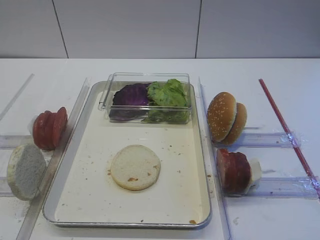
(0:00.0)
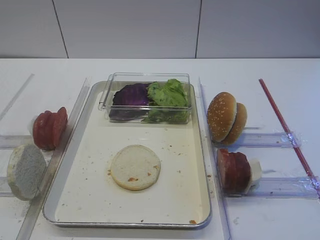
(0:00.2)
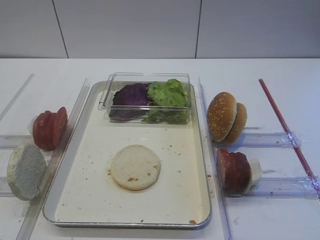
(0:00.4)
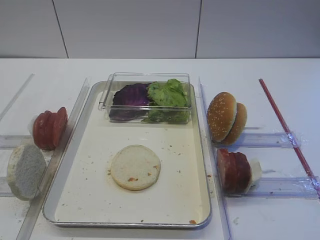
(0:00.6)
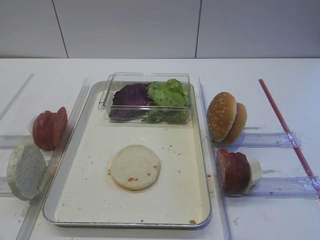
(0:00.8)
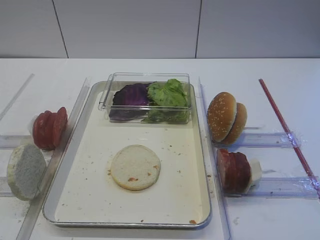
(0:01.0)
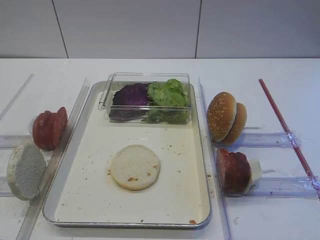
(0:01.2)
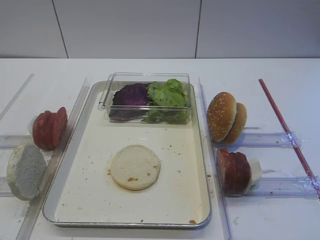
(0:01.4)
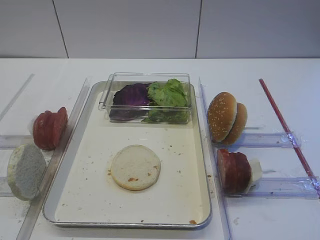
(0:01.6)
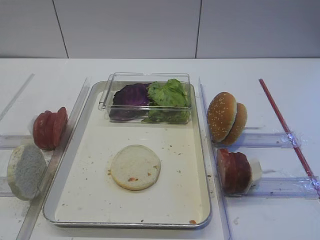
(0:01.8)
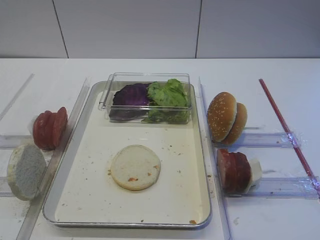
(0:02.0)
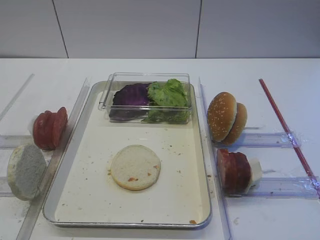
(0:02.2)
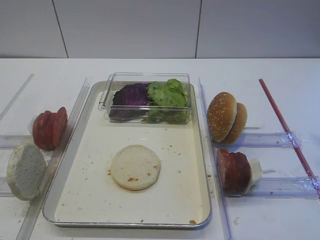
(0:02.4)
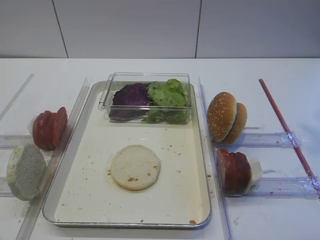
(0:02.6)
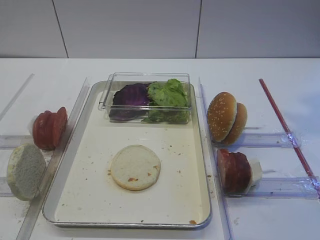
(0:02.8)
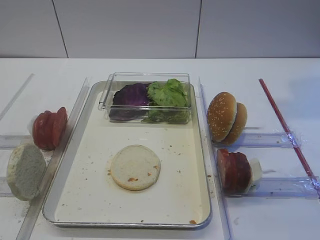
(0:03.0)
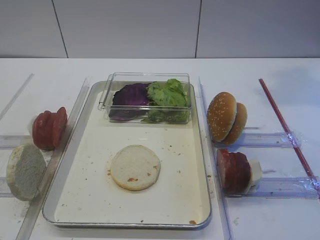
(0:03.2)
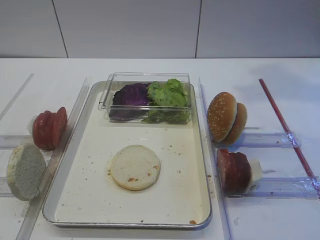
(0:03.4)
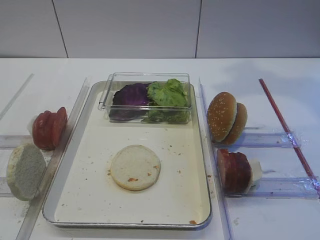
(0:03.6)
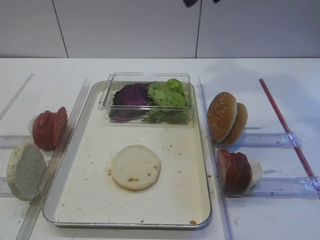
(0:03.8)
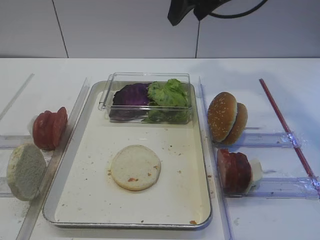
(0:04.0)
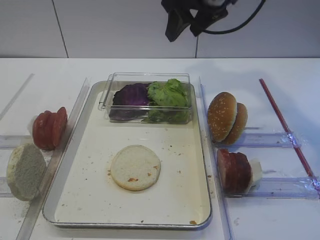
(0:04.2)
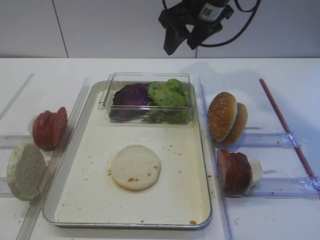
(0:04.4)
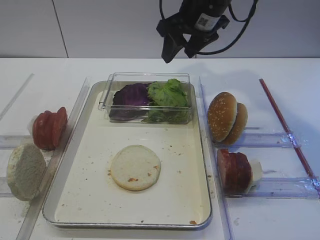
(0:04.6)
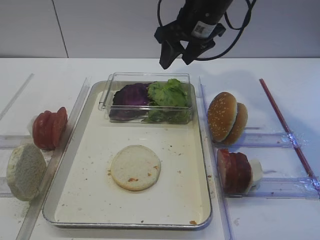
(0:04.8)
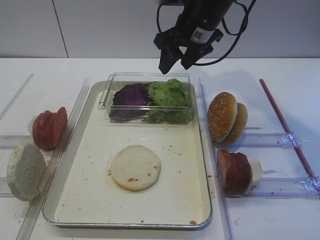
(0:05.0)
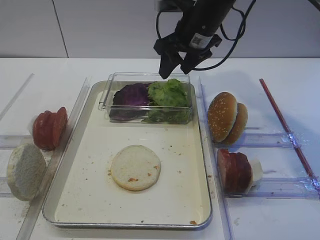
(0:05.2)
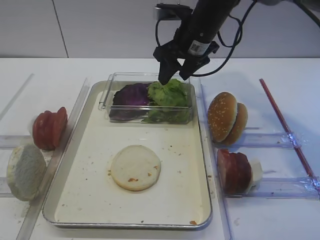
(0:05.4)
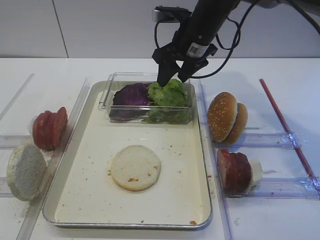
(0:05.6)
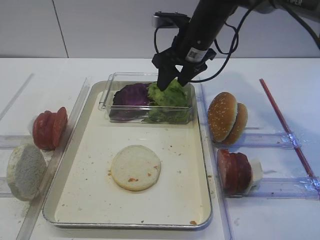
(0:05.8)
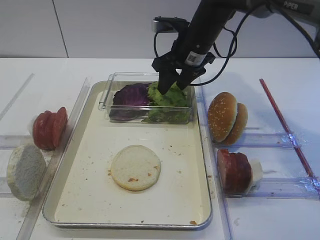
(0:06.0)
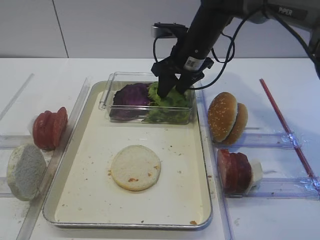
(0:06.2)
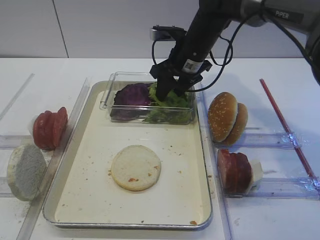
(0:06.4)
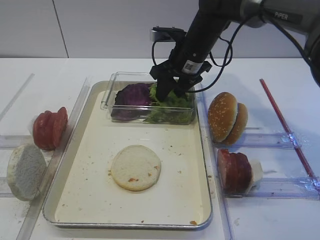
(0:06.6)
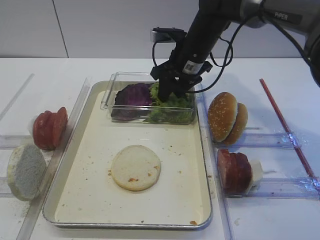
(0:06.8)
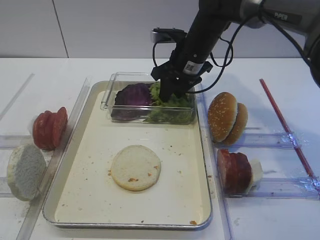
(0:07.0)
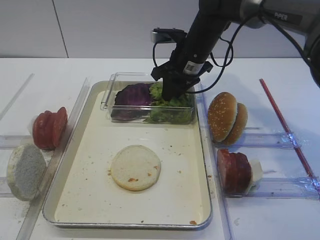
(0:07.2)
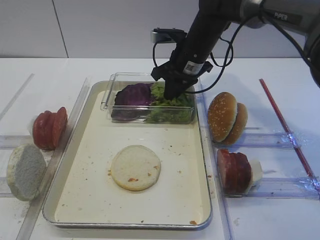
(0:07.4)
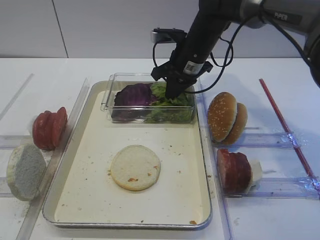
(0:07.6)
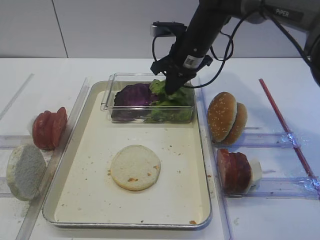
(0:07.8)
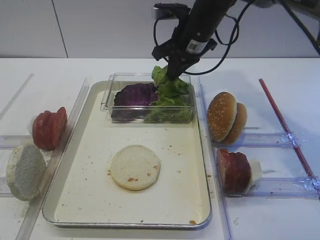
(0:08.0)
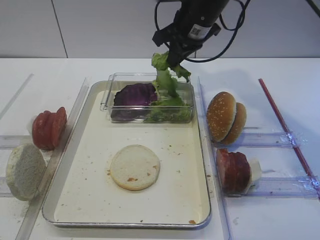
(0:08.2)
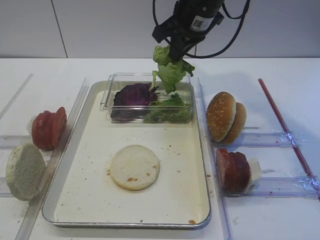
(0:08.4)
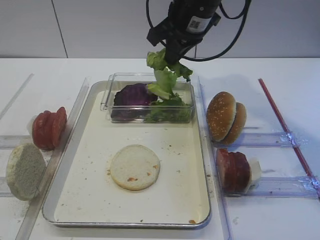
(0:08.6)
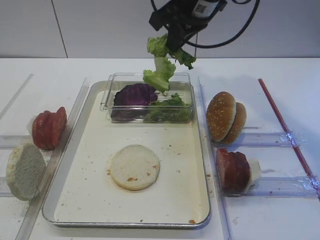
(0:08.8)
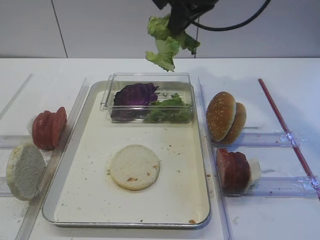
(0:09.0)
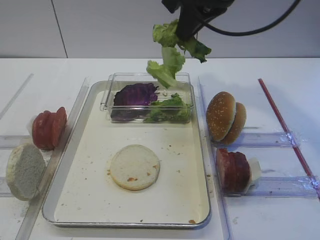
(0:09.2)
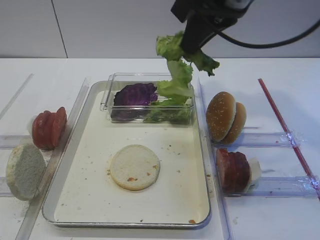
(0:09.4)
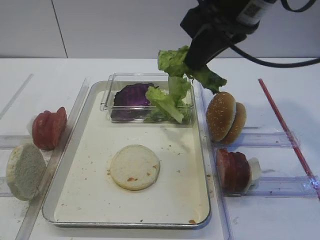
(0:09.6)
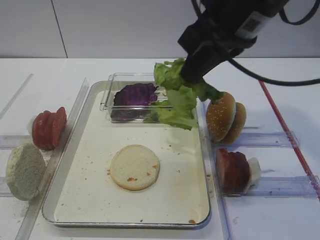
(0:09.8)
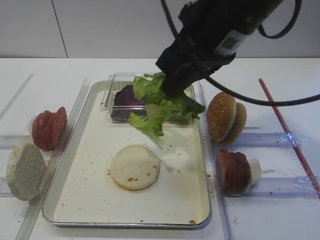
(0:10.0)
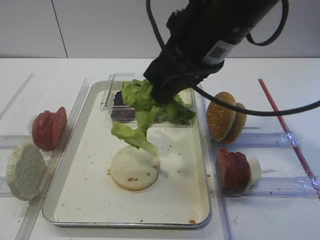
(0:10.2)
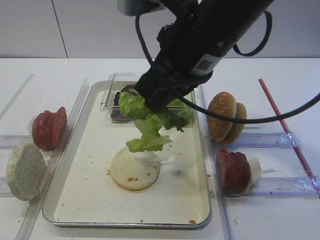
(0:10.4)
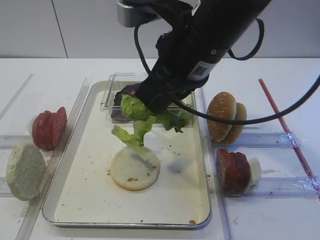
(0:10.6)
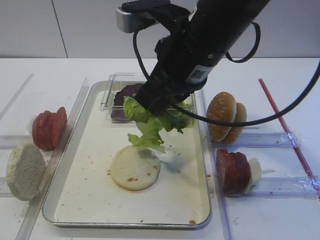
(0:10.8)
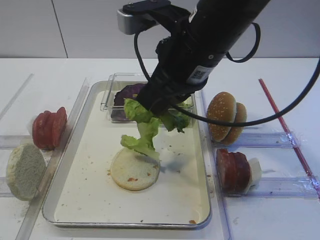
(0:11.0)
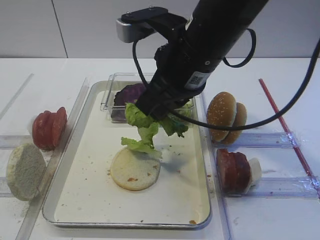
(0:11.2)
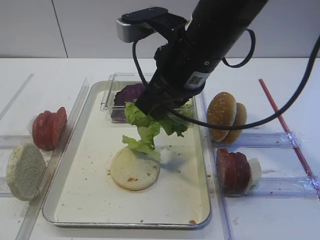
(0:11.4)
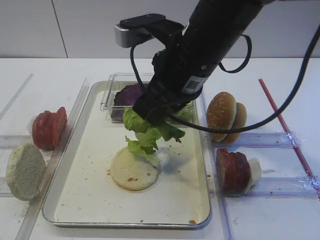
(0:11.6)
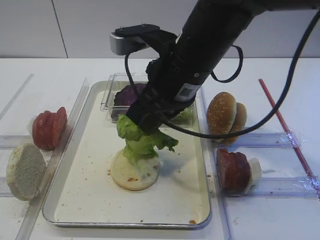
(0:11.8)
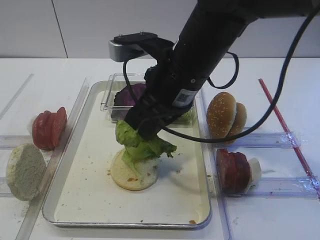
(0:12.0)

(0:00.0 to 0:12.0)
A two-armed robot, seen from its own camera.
Step, 0:00.0 - 0:08.0: Pick up the lettuce leaf with the right gripper.
0:03.0 - 0:04.4: The right gripper shifts about 25 cm forward, to the left and downward.
0:04.4 - 0:06.0: The right gripper heads downward, covering approximately 10 cm.
0:06.0 - 0:07.6: The right gripper closes up.
0:07.6 - 0:09.0: The right gripper heads upward and backward, covering approximately 20 cm.
0:09.0 - 0:10.4: The right gripper travels backward by some 10 cm.
0:10.4 - 0:12.0: The right gripper is displaced downward by roughly 5 cm.

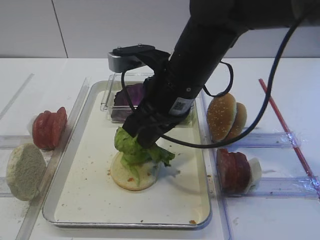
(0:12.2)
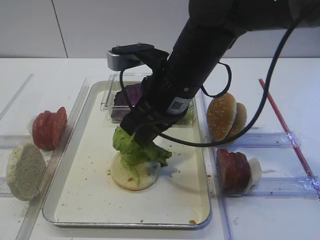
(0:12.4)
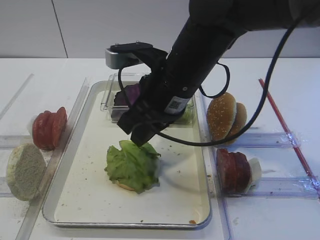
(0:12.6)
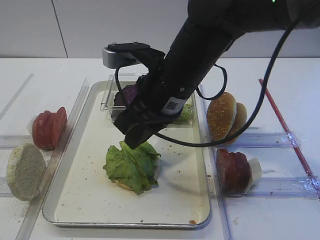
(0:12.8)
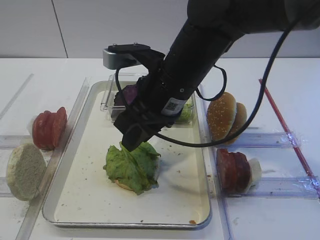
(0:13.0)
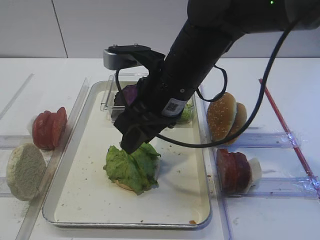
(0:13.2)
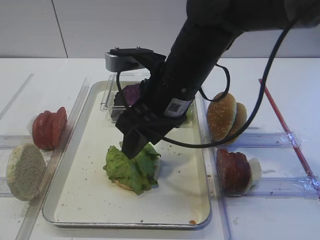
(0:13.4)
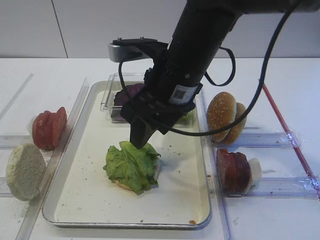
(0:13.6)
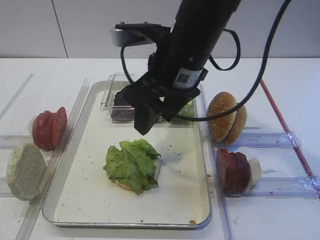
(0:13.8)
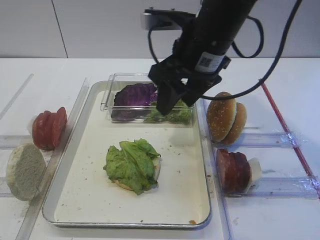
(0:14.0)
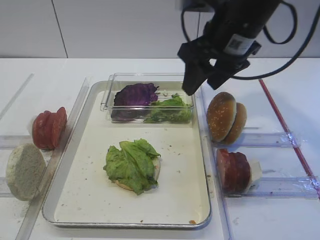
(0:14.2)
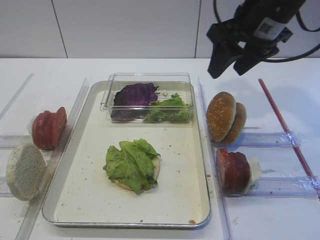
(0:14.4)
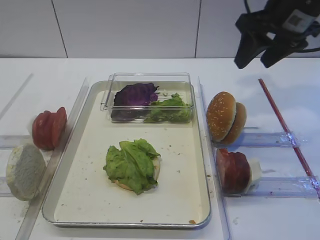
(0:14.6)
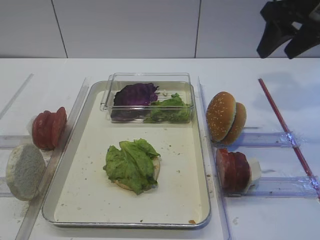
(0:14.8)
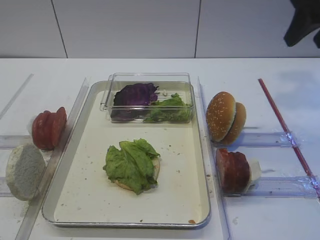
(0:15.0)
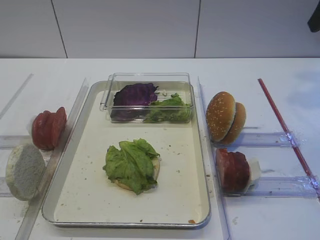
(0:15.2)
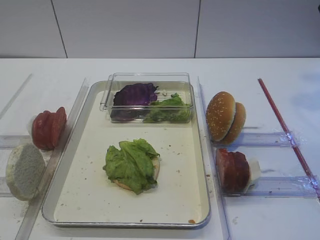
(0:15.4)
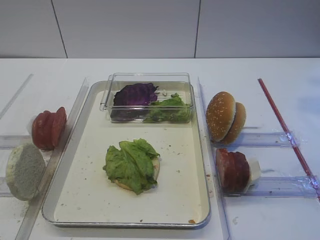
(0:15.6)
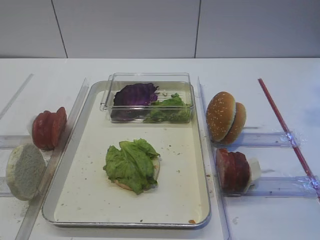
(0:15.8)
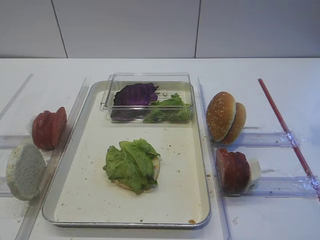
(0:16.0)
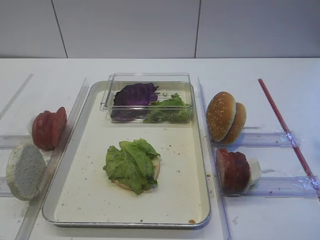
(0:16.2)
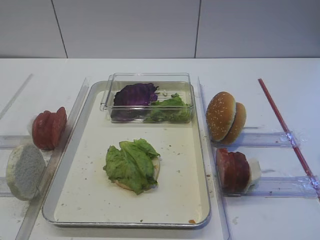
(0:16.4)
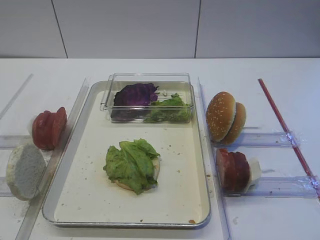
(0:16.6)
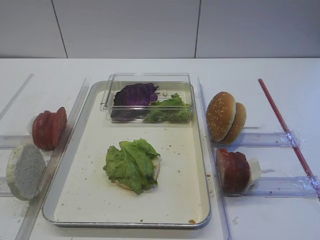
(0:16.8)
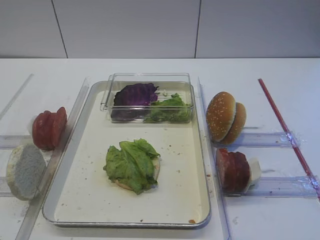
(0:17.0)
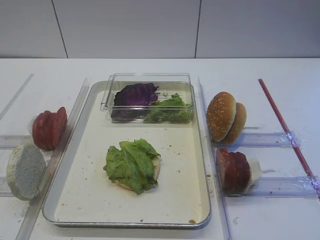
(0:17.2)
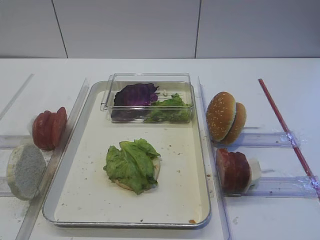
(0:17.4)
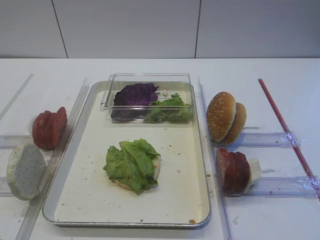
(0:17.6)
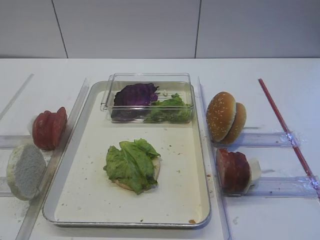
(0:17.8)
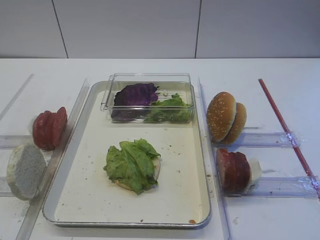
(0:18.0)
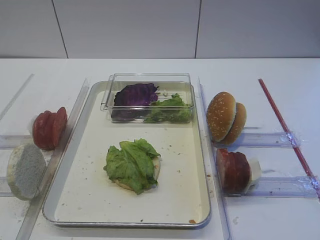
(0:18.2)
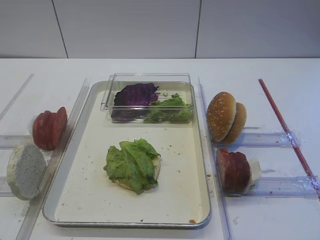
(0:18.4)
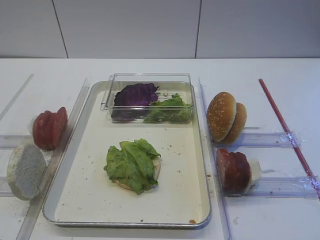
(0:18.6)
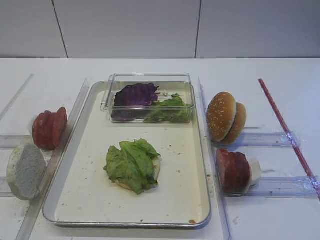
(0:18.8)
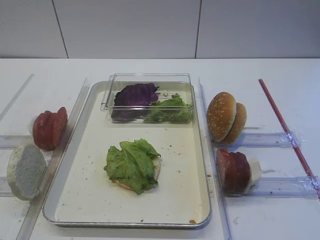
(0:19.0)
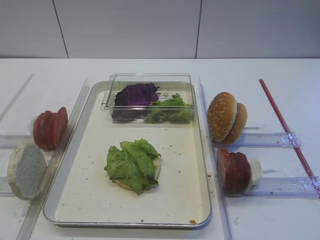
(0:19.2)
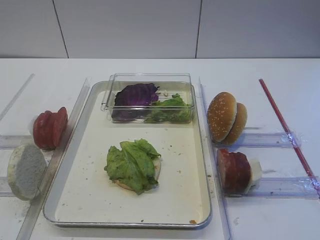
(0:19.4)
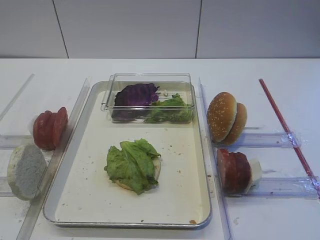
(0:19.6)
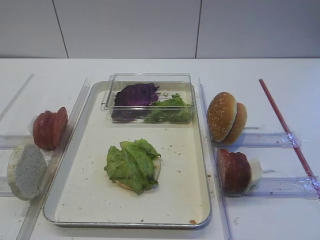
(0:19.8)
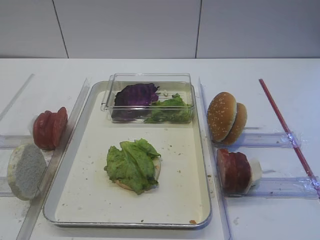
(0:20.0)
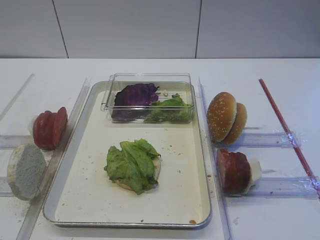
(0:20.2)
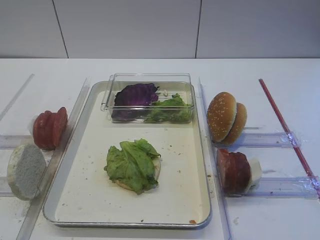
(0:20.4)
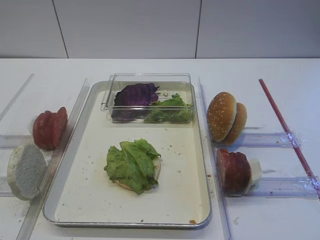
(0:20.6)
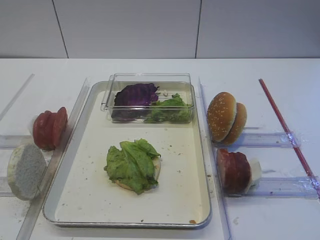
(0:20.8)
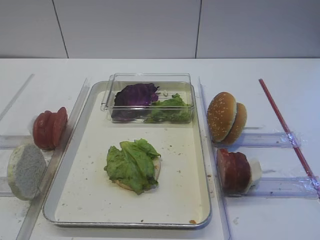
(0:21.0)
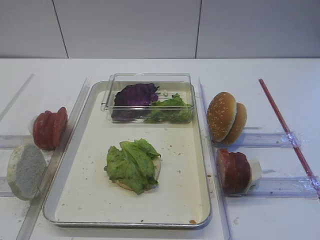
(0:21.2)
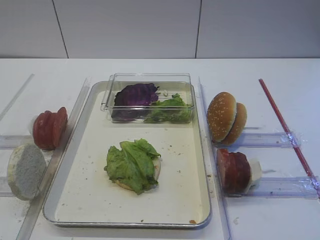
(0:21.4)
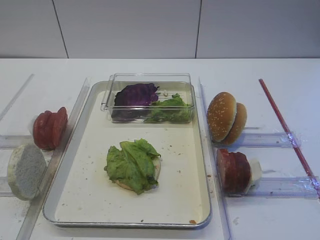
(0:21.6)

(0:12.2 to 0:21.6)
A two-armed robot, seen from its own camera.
0:12.2 - 0:13.8: The right gripper opens its fingers.
0:13.8 - 0:15.4: The right gripper heads to the right and upward, covering roughly 30 cm.
0:20.0 - 0:21.6: Both grippers stay put.

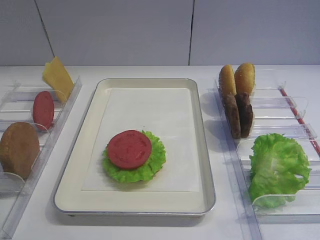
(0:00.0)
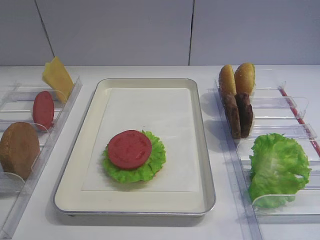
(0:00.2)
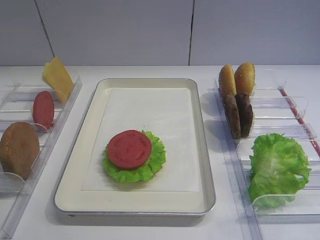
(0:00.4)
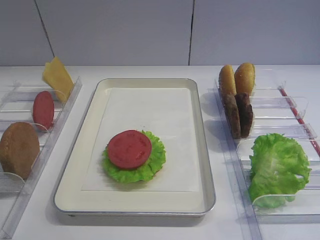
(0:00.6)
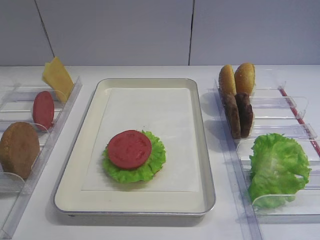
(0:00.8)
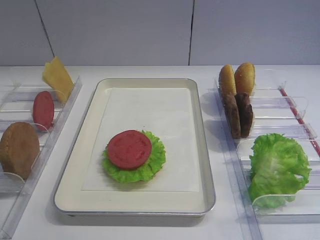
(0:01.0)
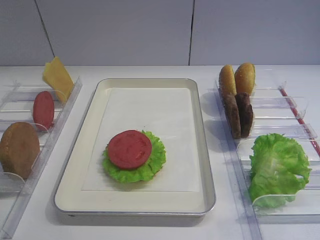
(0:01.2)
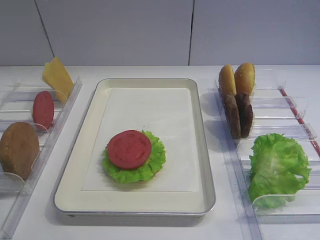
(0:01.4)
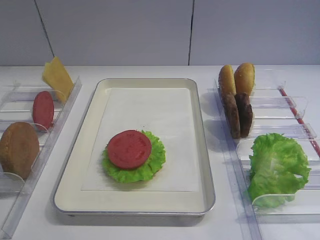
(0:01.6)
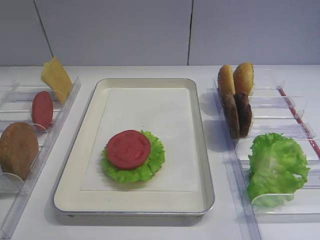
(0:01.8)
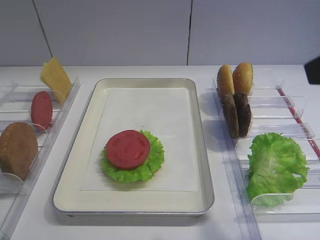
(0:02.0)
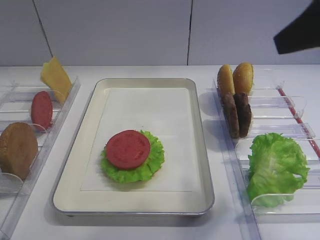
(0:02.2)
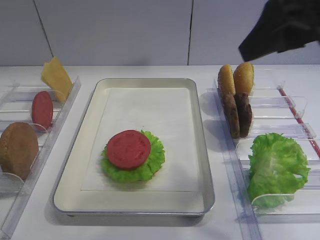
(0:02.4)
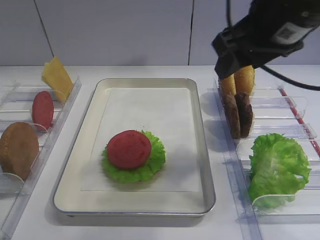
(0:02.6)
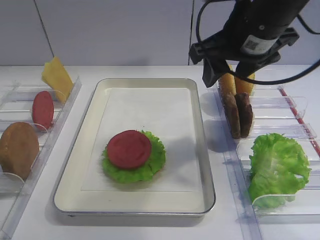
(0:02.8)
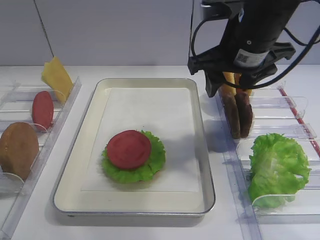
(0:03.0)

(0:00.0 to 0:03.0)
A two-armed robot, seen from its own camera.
0:01.6 - 0:03.0: The right gripper is displaced forward and to the left by some 35 cm.
